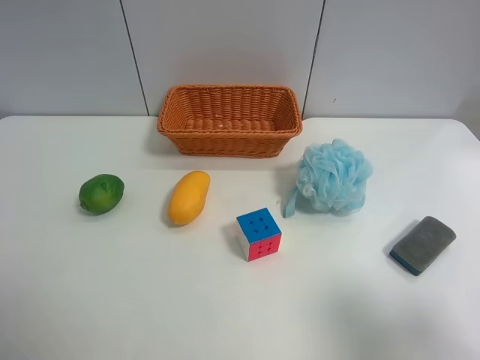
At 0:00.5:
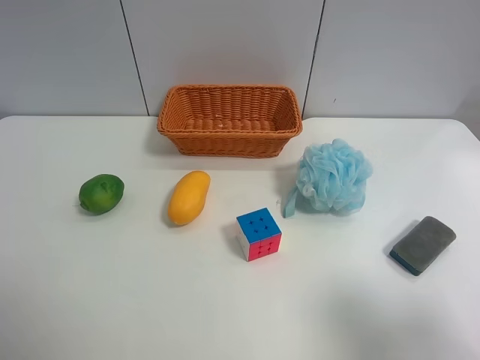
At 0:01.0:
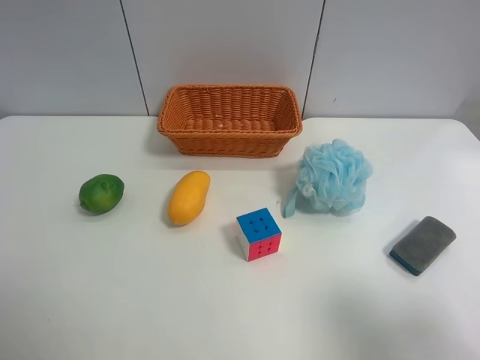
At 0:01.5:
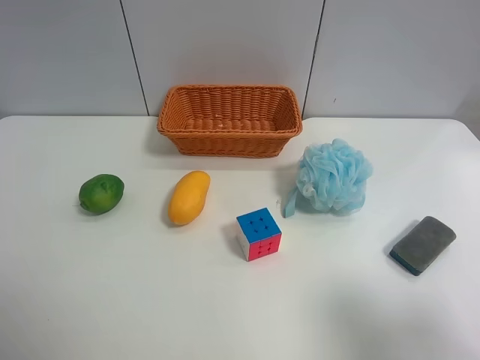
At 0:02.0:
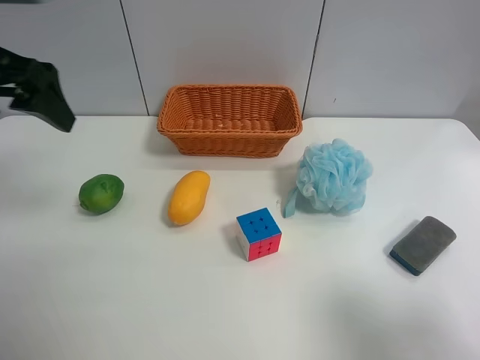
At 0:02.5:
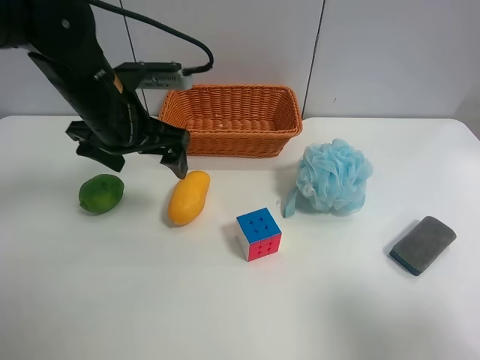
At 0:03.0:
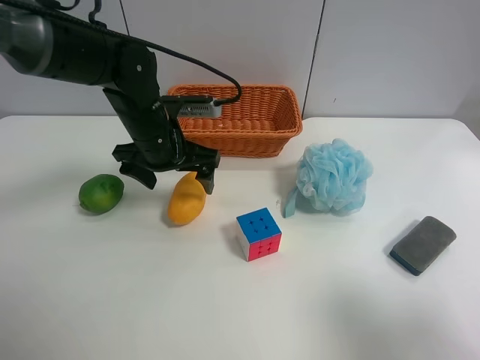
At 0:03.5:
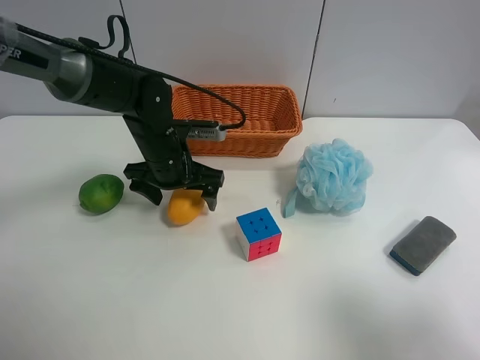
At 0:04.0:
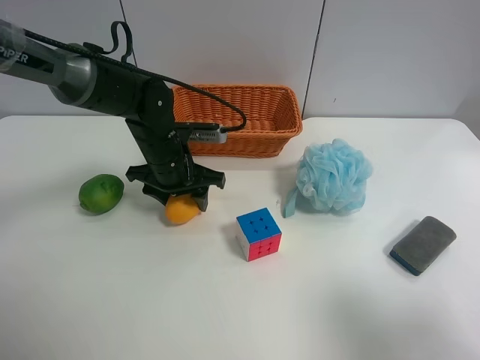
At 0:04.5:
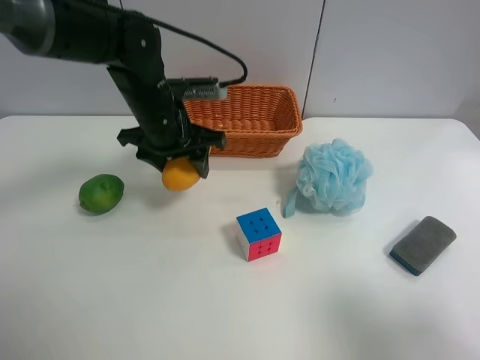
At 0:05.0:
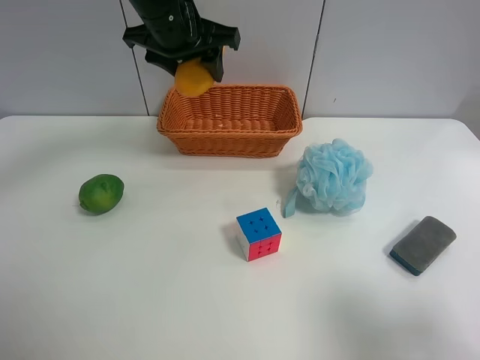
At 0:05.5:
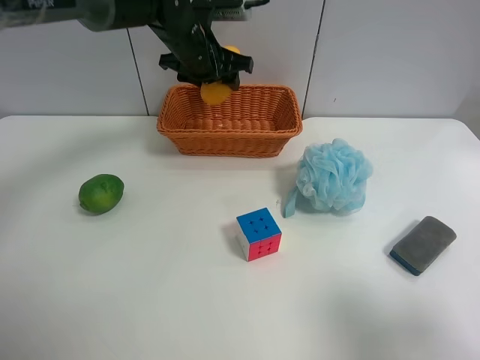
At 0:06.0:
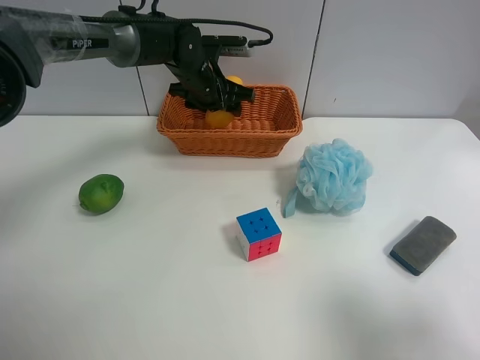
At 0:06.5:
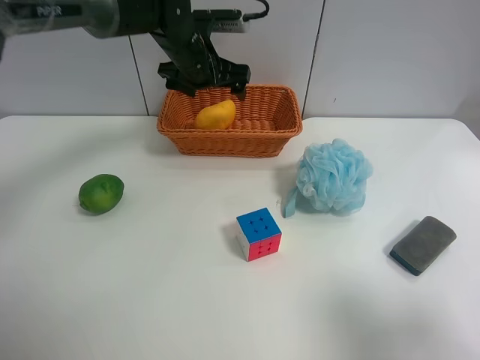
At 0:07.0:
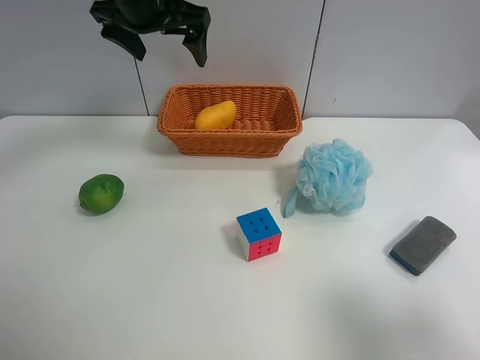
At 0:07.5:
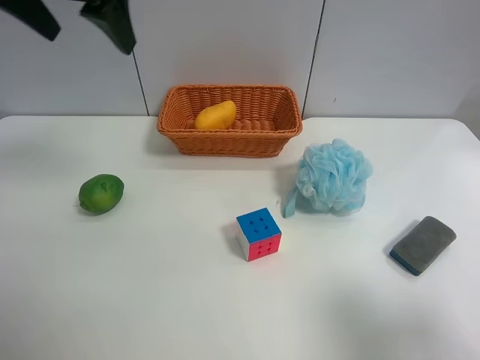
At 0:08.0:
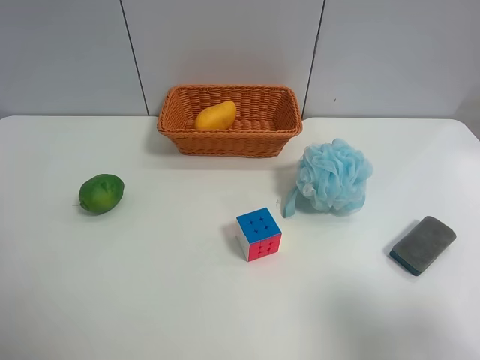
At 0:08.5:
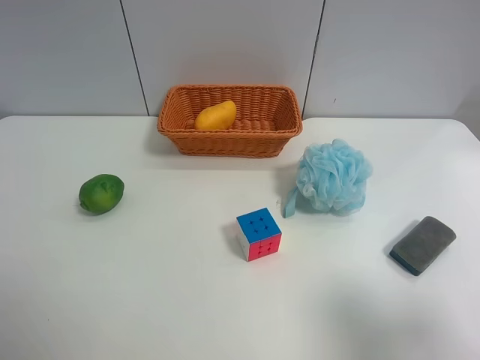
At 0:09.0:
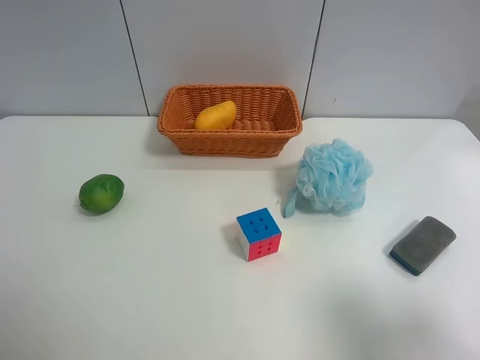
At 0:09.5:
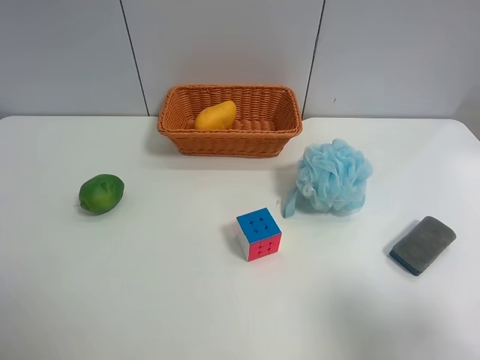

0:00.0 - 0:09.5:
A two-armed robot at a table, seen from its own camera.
Task of the whole recording: use the left gripper to grab items from the table and place them in the basket.
Step, 0:00.0 - 0:04.0: Grasp the mango with the left gripper.
Step, 0:04.5 - 0:06.0: Place the mango into the basket with the left gripper.
0:00.0 - 0:02.0: The left gripper moves forward, some 25 cm.
0:02.0 - 0:04.0: The left gripper shifts roughly 25 cm downward, to the right and forward, and closes.
0:04.0 - 0:05.5: The left gripper heads forward and upward, covering roughly 15 cm.
0:05.5 - 0:07.5: The left gripper heads upward, backward and to the left, covering some 25 cm, and opens up.
0:07.5 - 0:09.5: The left gripper shifts about 35 cm backward and to the left.
